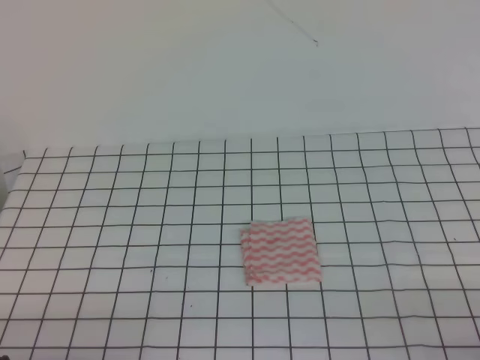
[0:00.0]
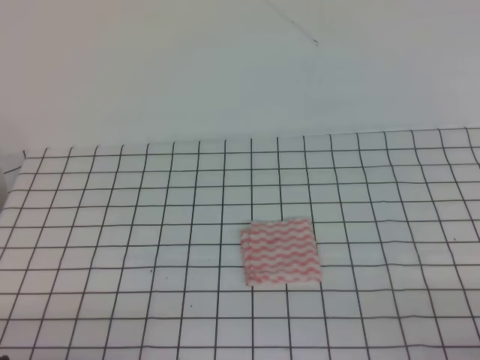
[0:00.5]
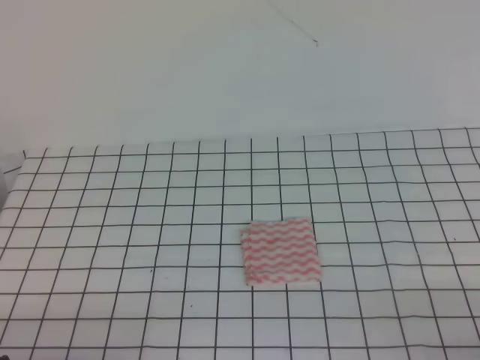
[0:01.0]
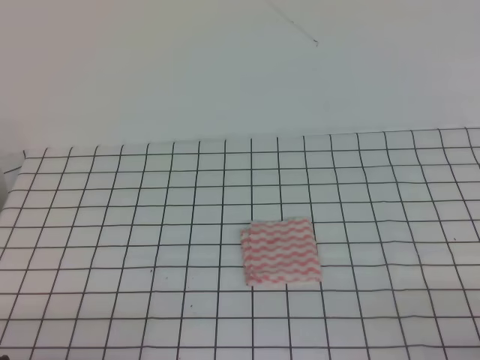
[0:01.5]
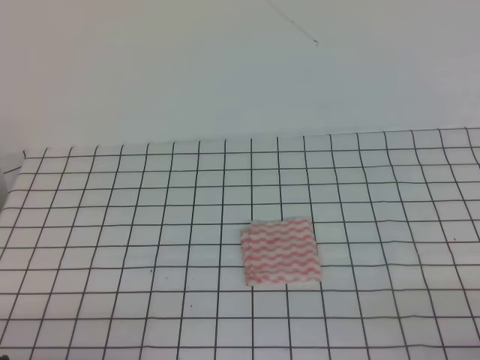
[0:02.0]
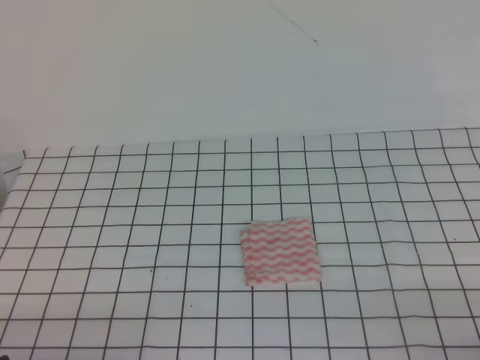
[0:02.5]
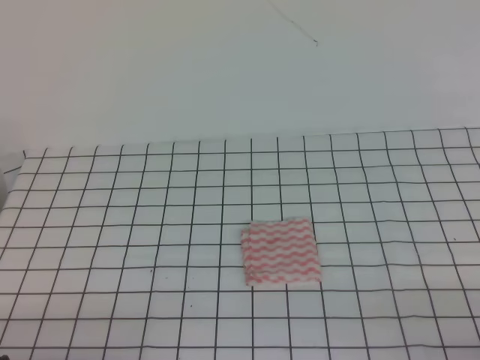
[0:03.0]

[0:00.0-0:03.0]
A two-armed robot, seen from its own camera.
0:00.0 to 0:03.0: Both grippers stay about where they are.

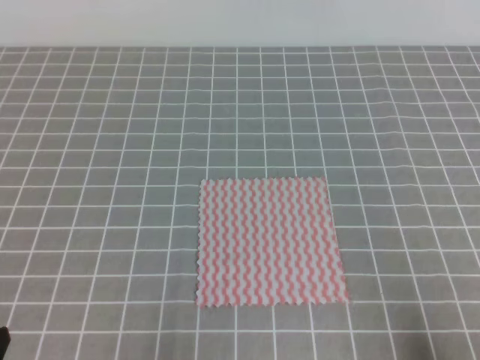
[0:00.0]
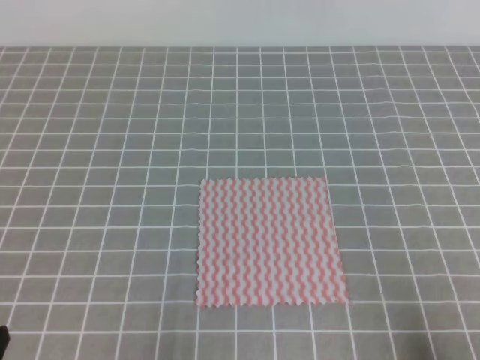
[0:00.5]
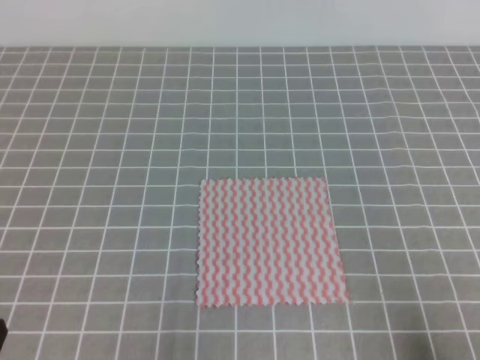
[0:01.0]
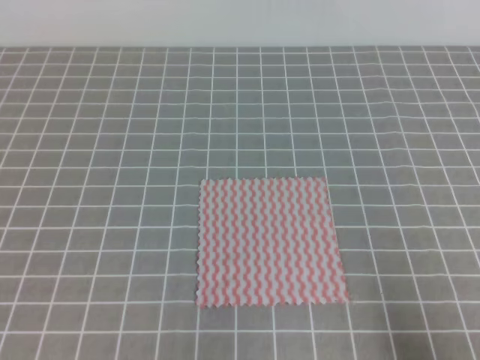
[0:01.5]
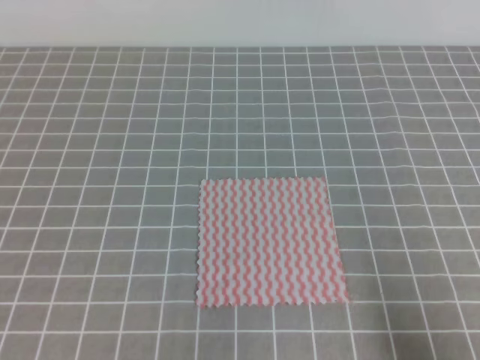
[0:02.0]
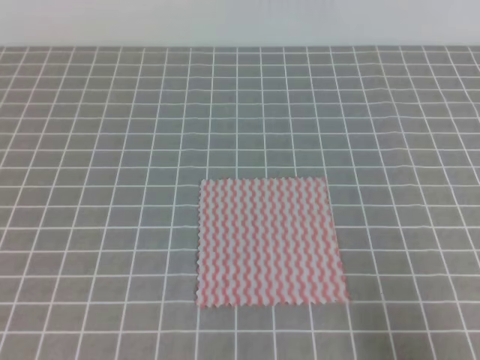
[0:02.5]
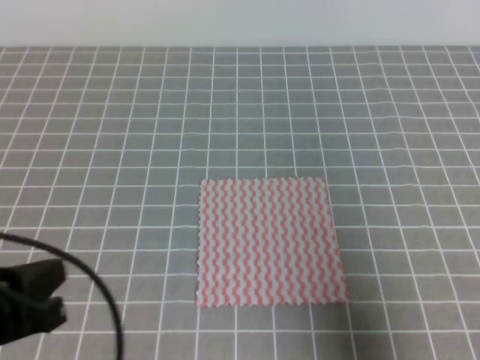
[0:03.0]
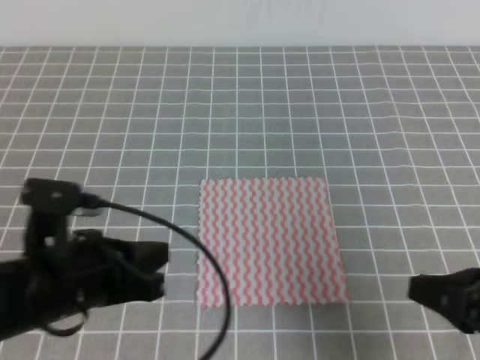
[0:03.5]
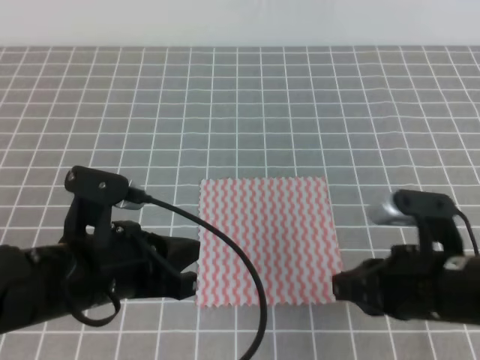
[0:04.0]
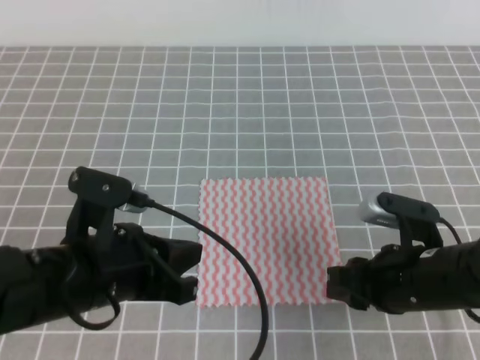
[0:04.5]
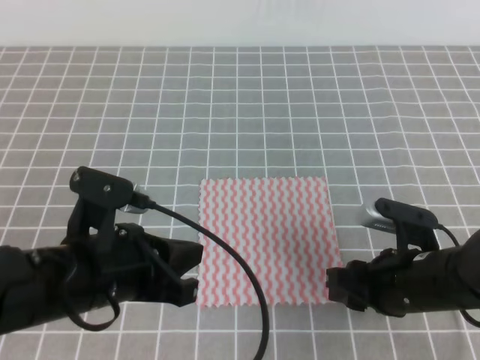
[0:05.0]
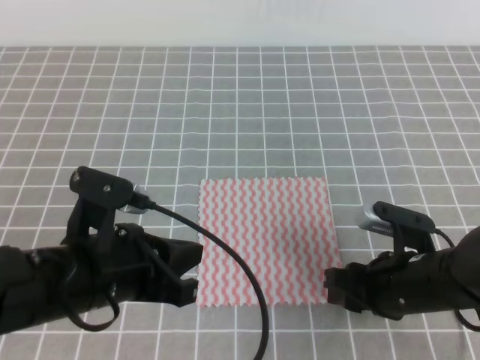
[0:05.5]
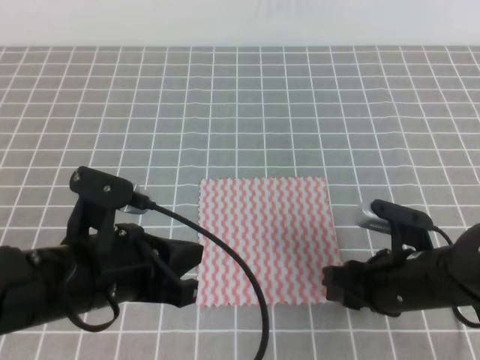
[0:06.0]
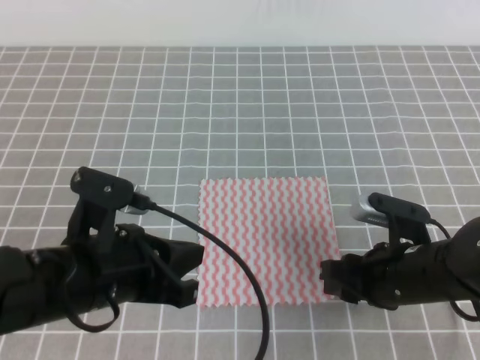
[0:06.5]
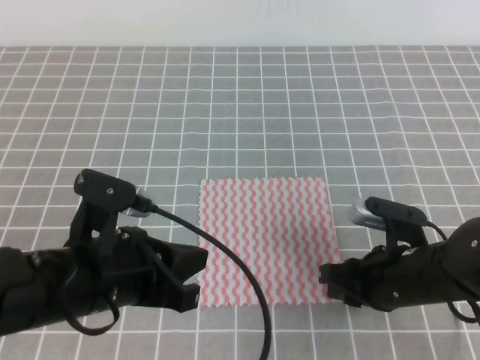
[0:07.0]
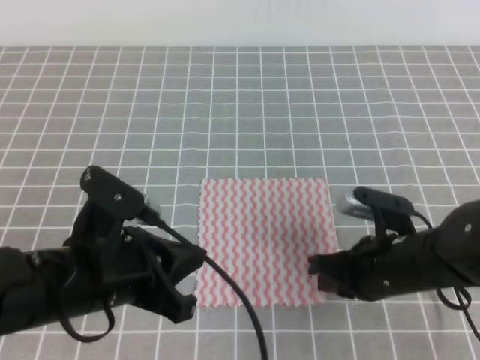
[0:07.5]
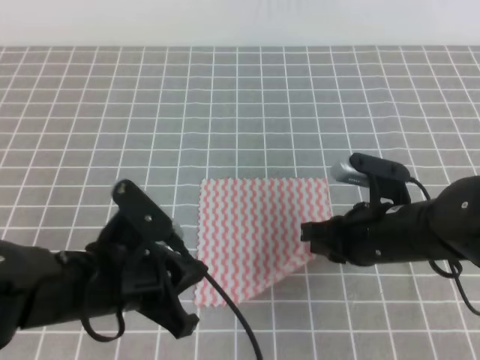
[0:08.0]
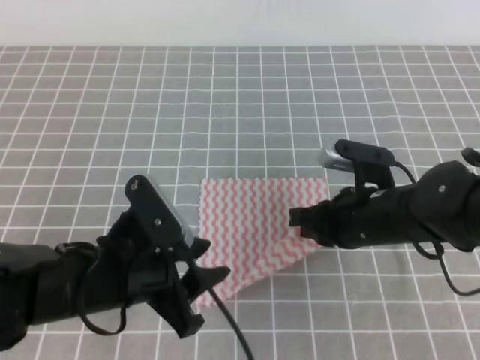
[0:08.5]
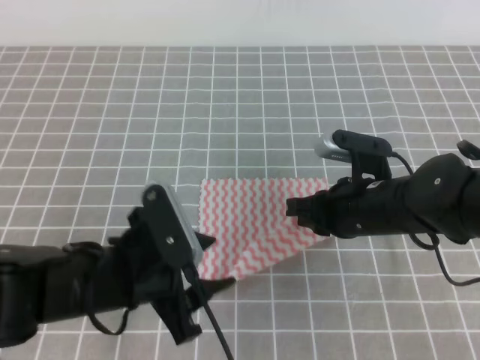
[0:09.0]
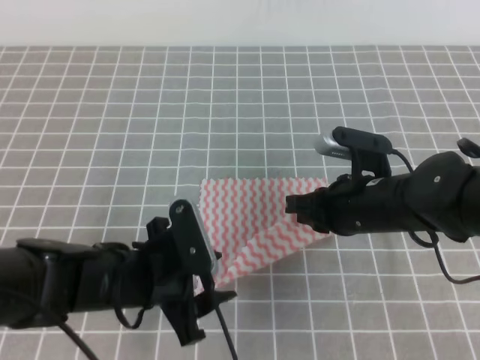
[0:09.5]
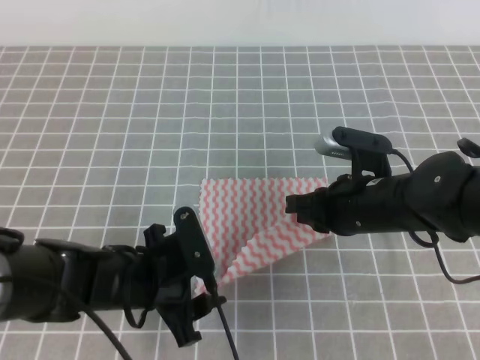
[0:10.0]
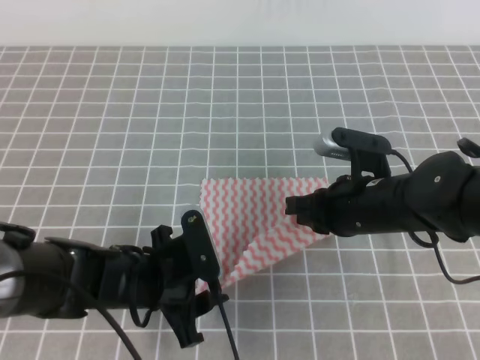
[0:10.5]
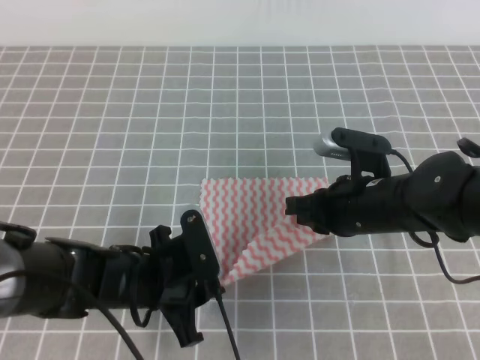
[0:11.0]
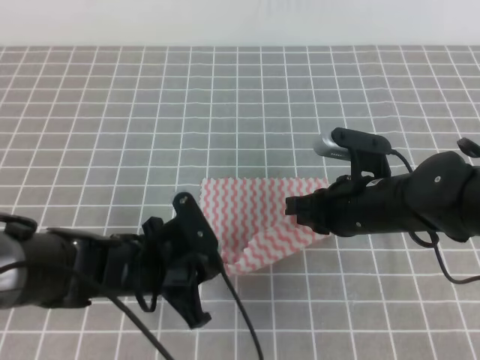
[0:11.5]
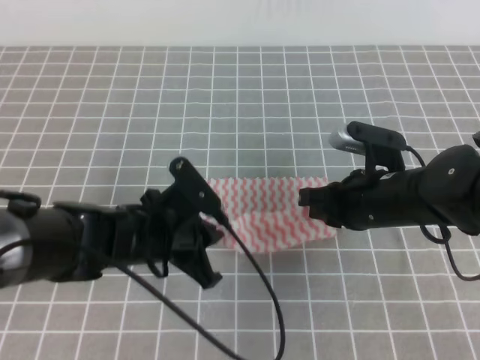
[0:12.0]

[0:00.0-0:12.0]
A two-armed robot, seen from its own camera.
0:02.0 to 0:04.0: The right gripper shifts roughly 20 cm forward and to the left. The left gripper moves forward and to the right, roughly 20 cm.
0:04.0 to 0:06.0: The right gripper heads downward, covering roughly 5 cm, and opens.
0:06.0 to 0:08.0: The right gripper moves some 5 cm, and closes up.
0:08.0 to 0:10.0: The left gripper heads downward, covering some 5 cm, and opens its fingers.
0:10.0 to 0:12.0: The left gripper closes.

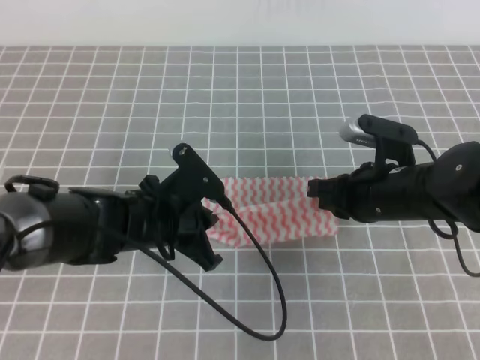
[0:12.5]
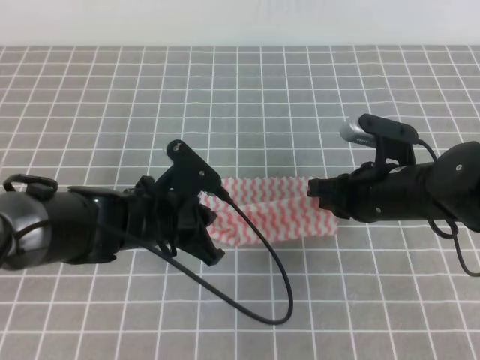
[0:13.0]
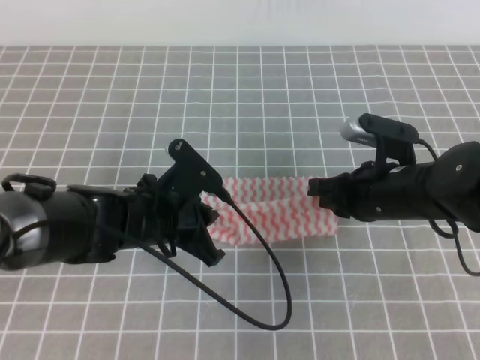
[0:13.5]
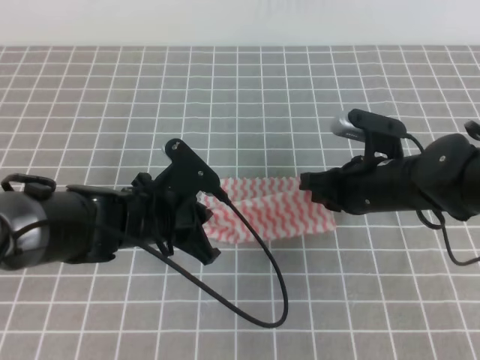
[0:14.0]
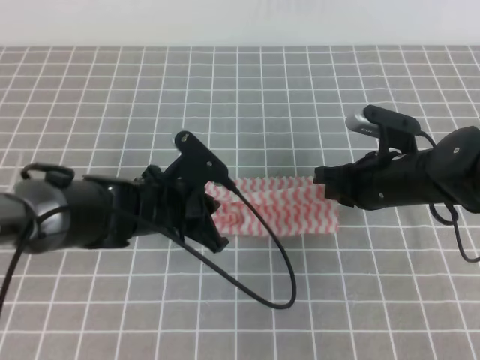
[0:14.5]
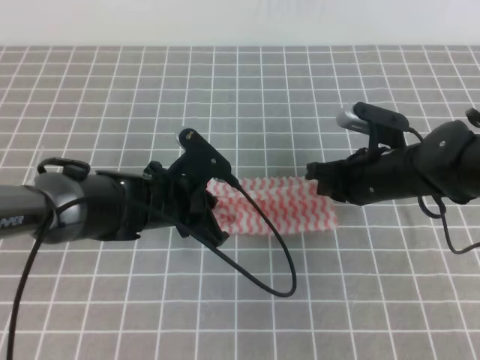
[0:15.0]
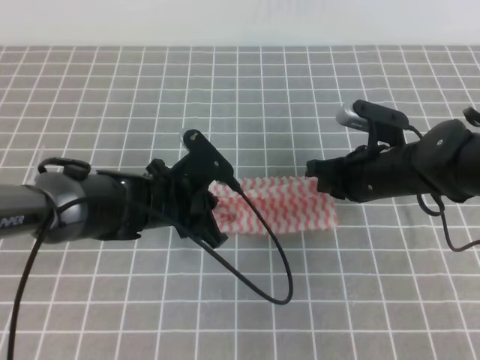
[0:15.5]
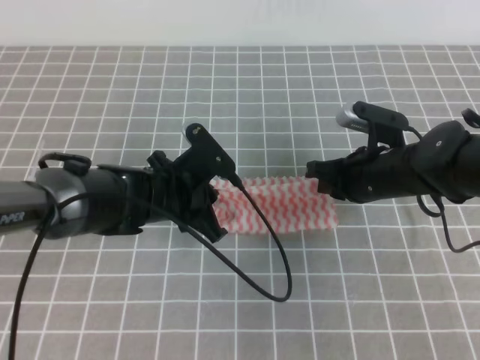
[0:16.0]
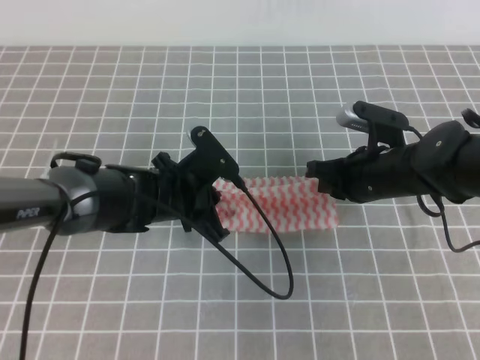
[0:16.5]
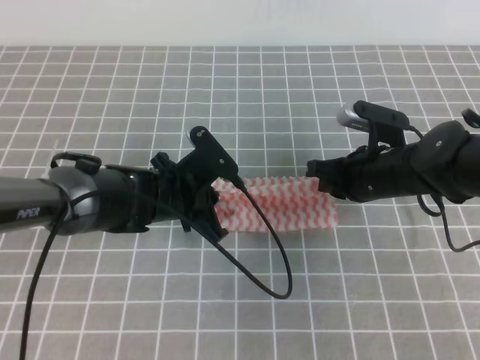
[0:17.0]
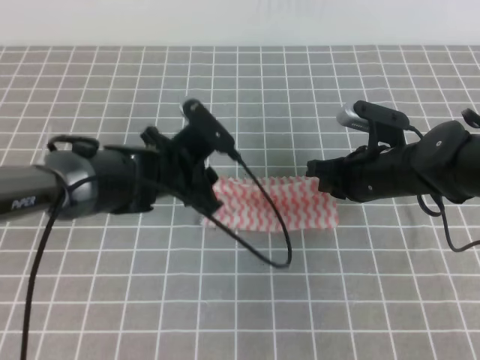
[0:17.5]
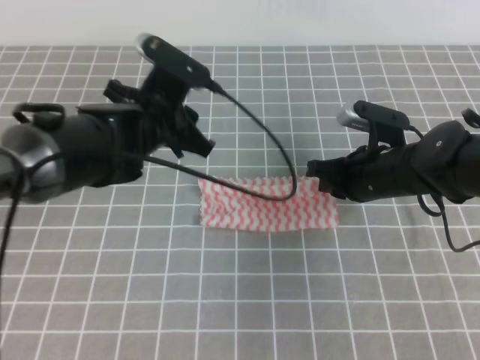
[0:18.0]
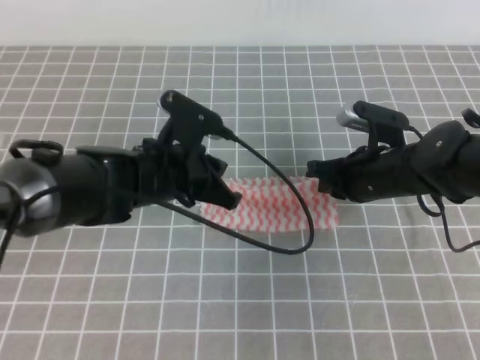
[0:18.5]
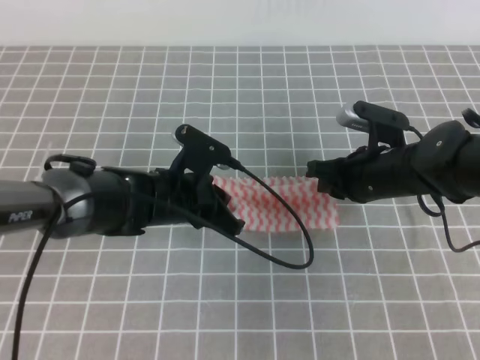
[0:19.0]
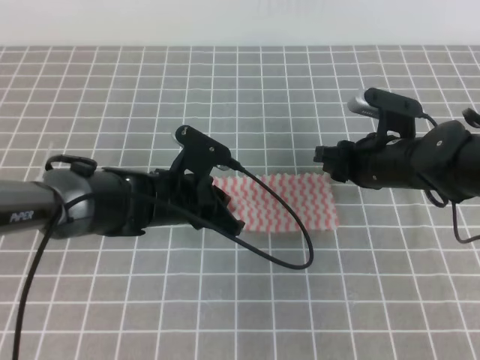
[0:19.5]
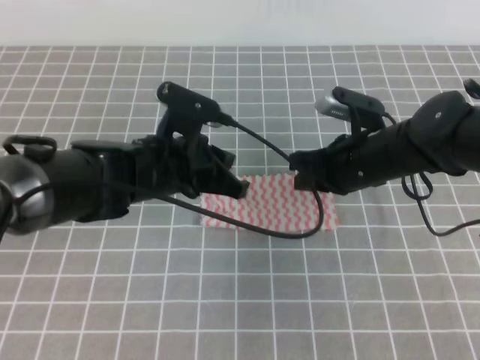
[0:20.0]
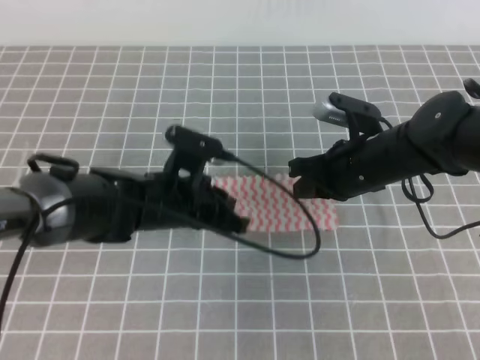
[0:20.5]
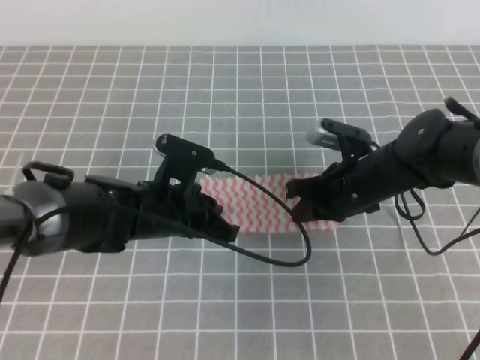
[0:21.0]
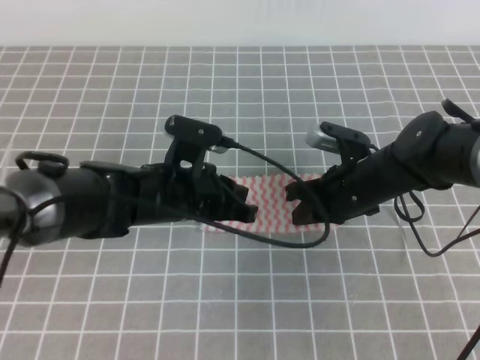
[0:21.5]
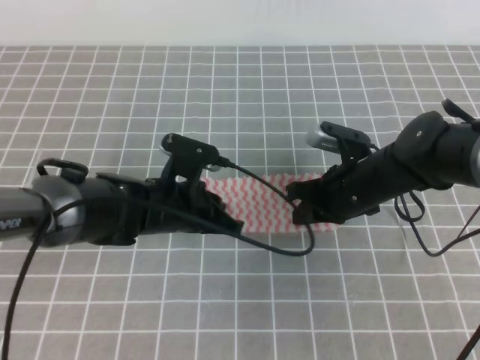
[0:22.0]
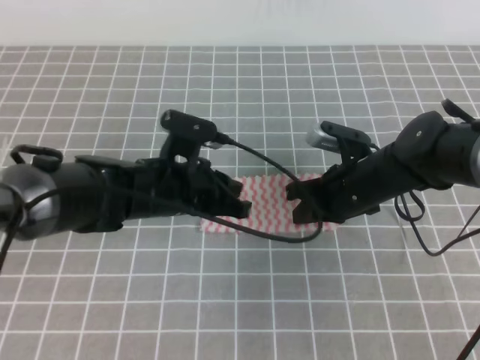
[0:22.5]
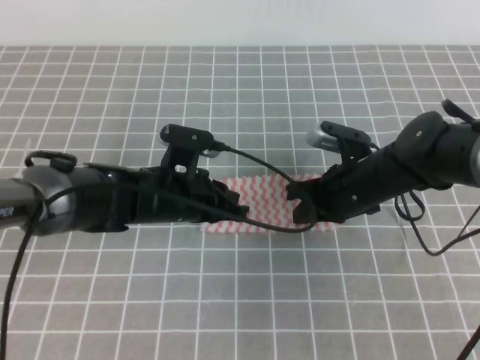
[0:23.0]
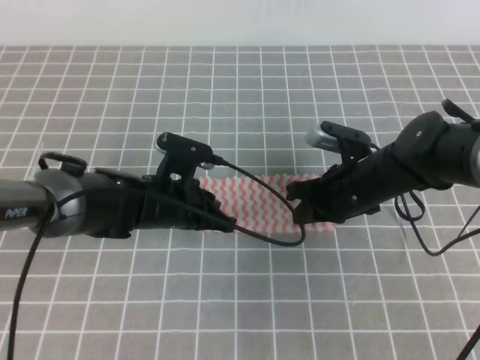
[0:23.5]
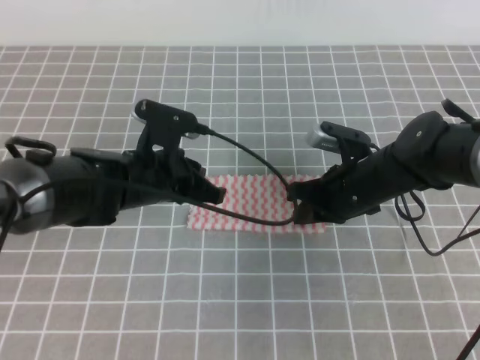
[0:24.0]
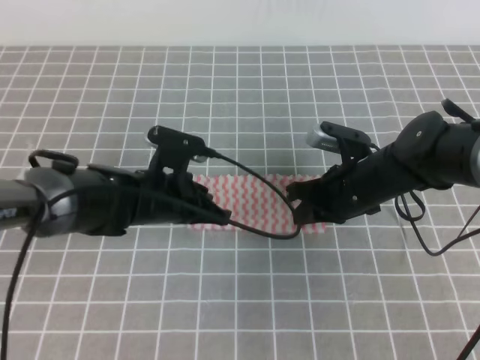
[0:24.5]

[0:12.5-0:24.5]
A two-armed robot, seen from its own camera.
0:12.5 to 0:16.5: There are only small adjustments of the grippers.
0:16.5 to 0:18.5: The left gripper opens, then closes once more.
0:18.5 to 0:20.5: The right gripper opens, then closes again.
0:20.5 to 0:24.5: The grippers make only small movements.
